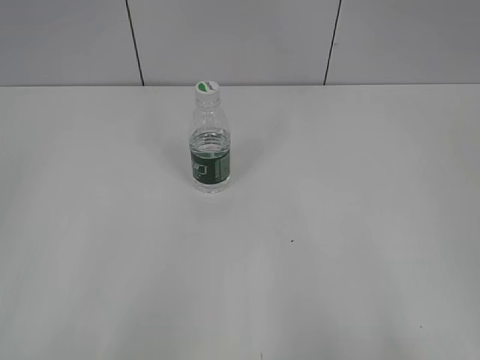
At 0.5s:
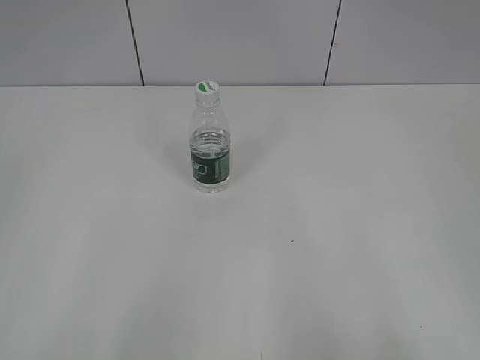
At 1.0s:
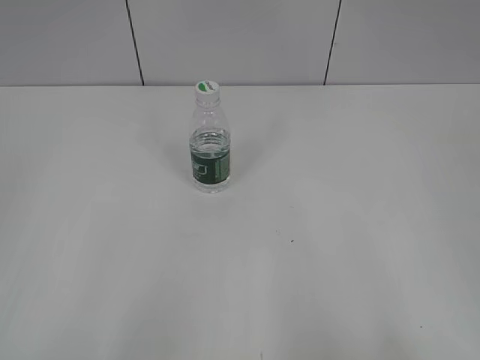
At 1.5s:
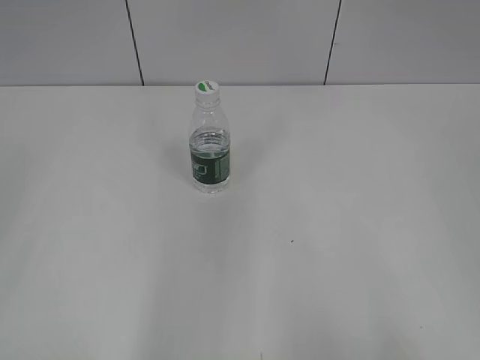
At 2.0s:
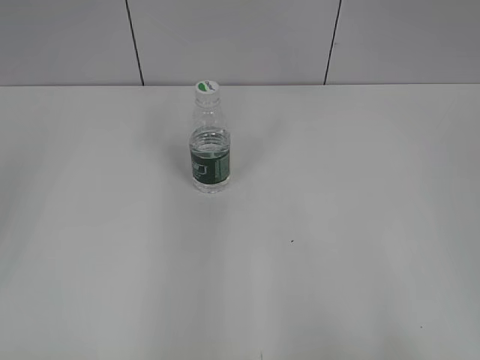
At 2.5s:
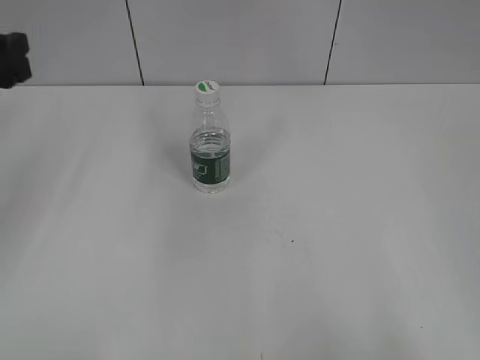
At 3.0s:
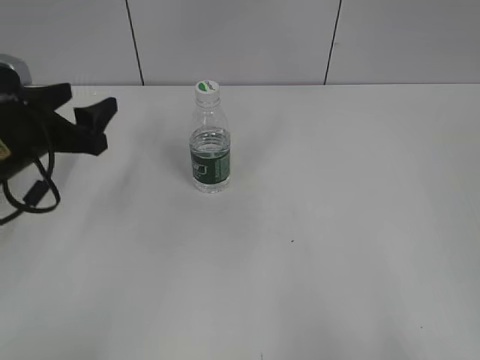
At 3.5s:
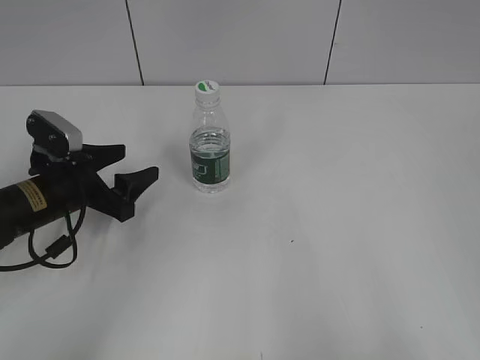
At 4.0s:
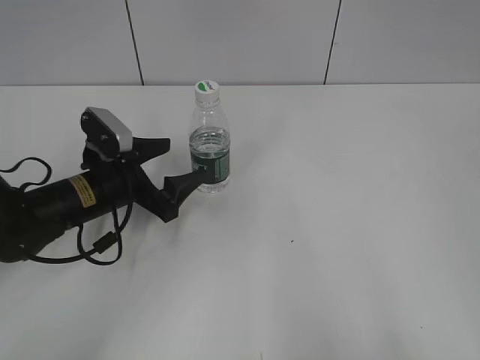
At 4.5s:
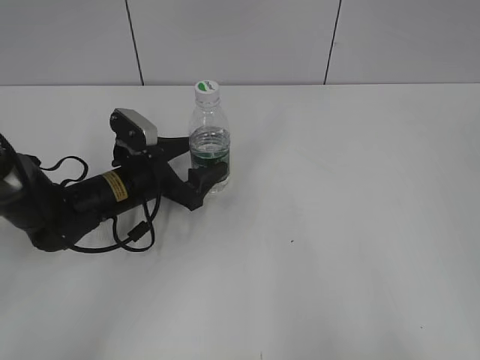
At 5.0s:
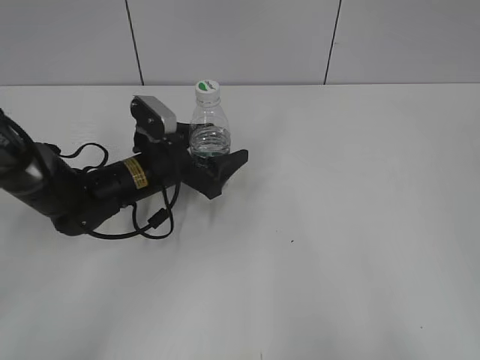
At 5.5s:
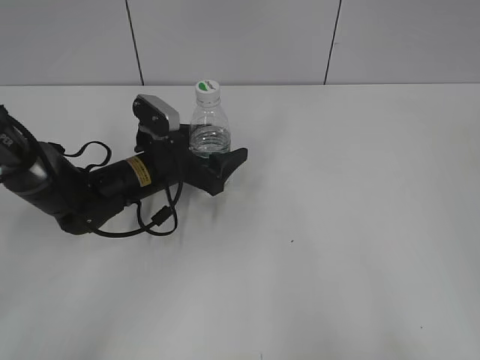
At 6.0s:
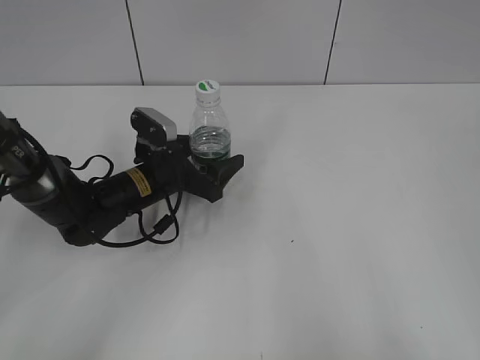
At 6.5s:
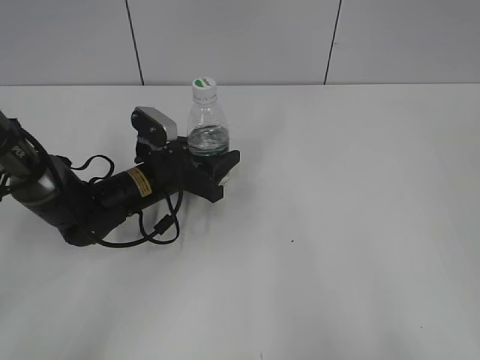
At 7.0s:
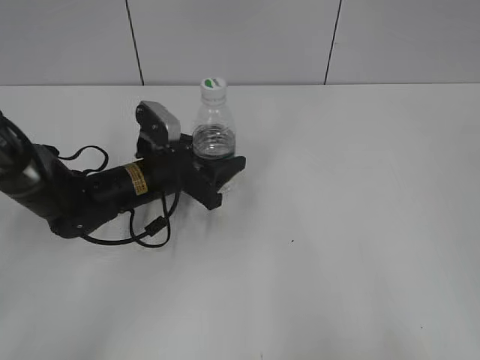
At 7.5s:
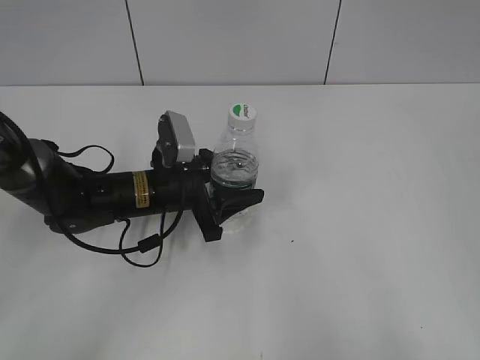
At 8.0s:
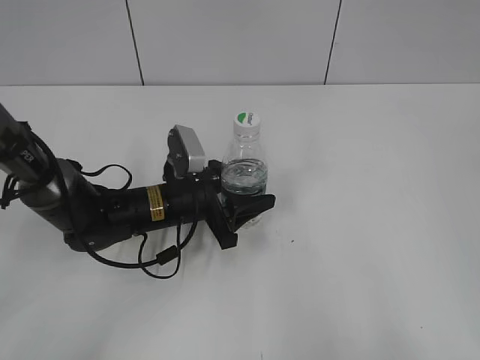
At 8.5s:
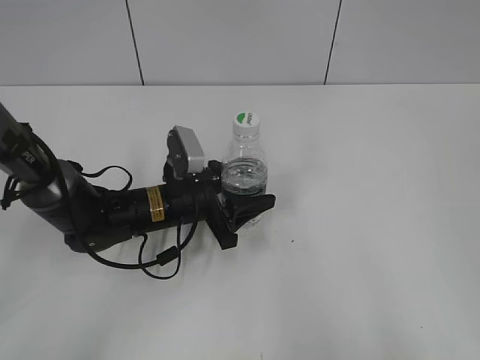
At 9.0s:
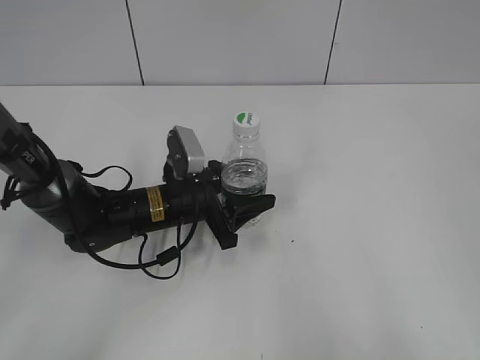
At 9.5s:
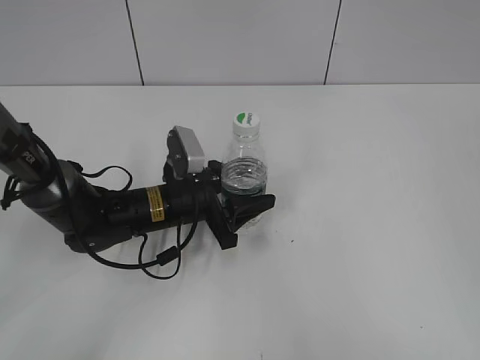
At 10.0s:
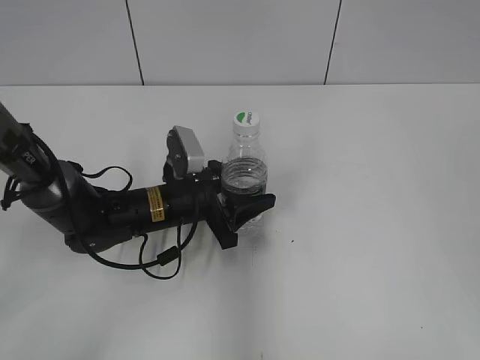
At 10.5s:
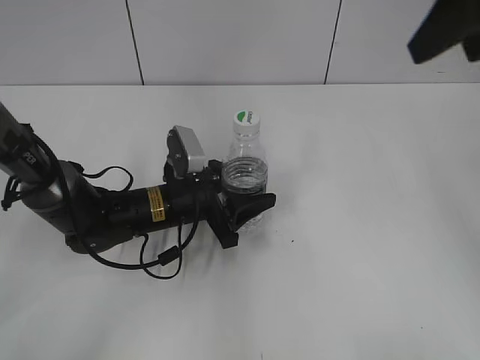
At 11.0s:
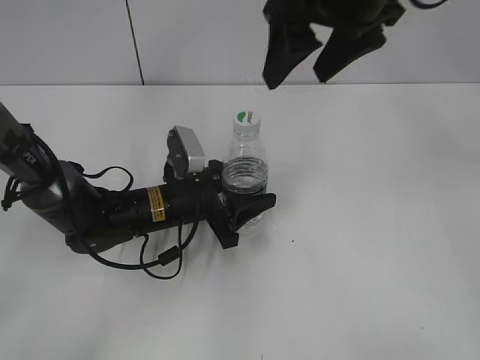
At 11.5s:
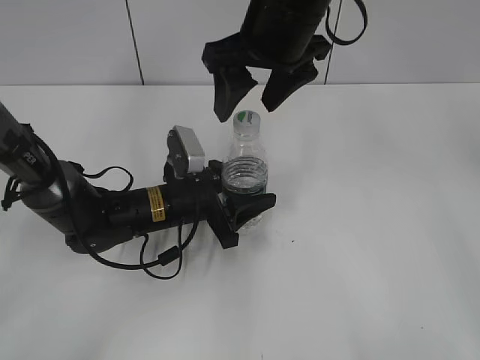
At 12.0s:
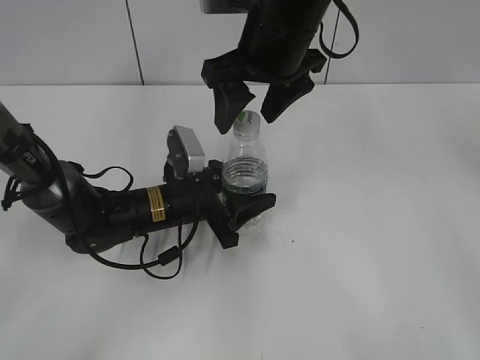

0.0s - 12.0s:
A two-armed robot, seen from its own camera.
Step, 0.0s - 6.0s: Grasp the bottle and move it to the center of the table with the left gripper.
Step, 6.5s - 7.5s: Lift the bottle and move it to the center of the table with the left gripper.
2.0s - 4.0s: The left gripper goes roughly 35 cm downward, forward and to the right, and opens.
4.0s - 6.0s: The left gripper heads to the right, covering about 5 cm.
6.0s - 8.0s: The left gripper shifts by approximately 5 cm, and closes its fingers.
8.0s - 10.0s: The right gripper goes roughly 15 cm forward and upward.
10.0s - 12.0s: The right gripper goes approximately 35 cm forward and to the left.

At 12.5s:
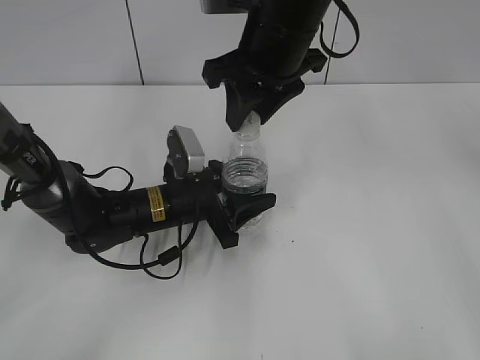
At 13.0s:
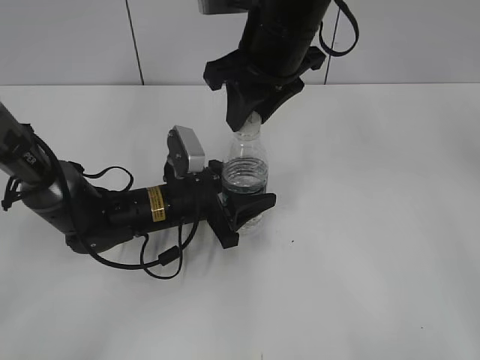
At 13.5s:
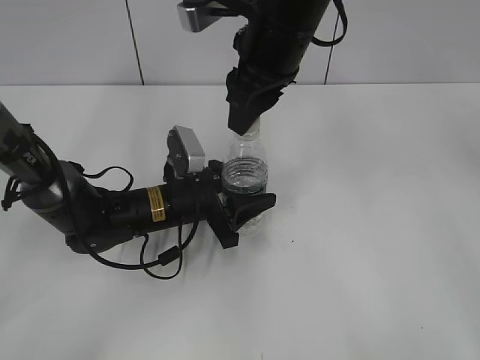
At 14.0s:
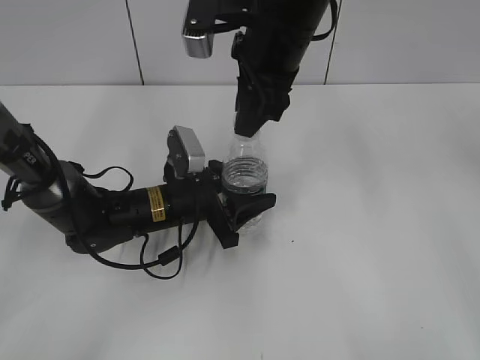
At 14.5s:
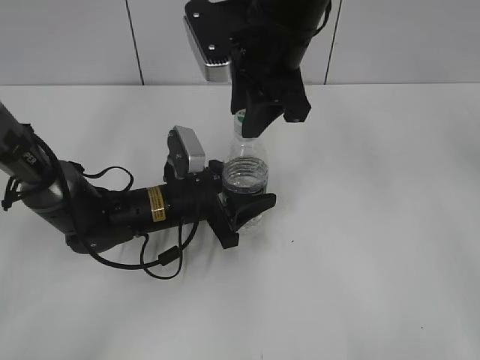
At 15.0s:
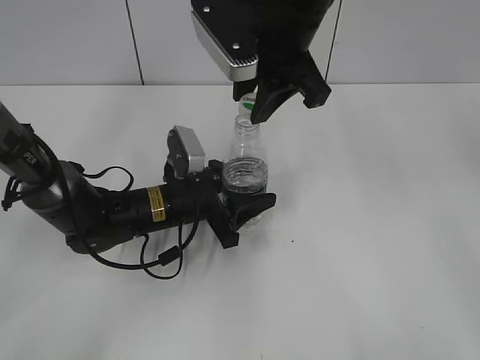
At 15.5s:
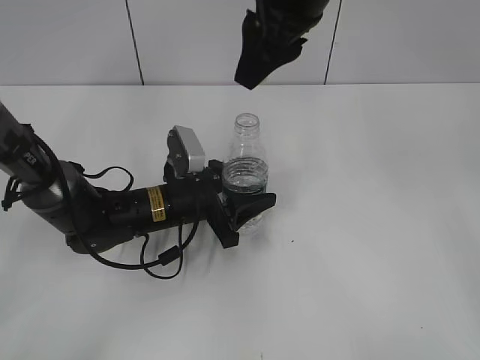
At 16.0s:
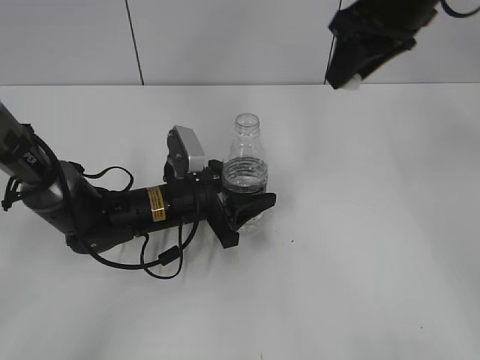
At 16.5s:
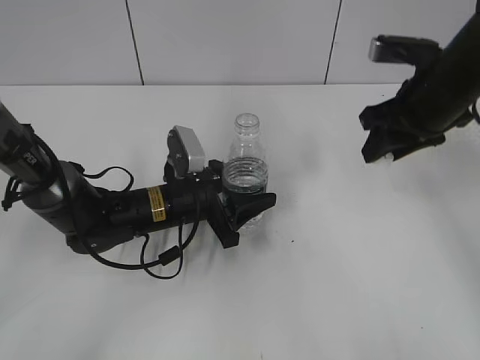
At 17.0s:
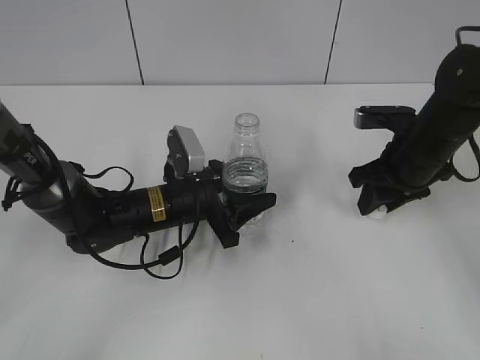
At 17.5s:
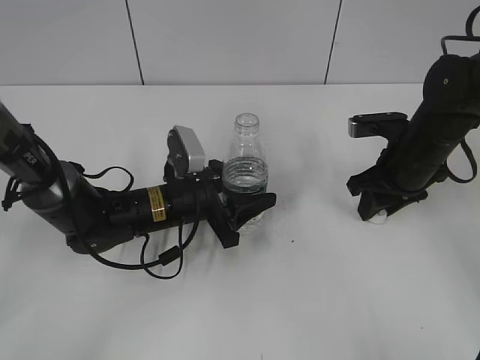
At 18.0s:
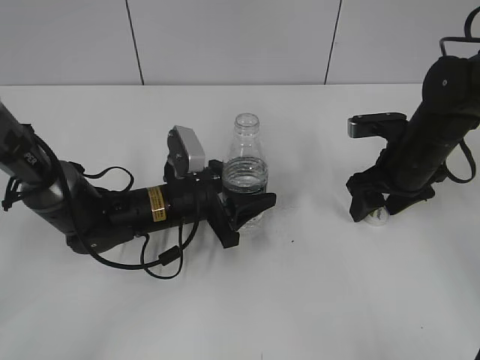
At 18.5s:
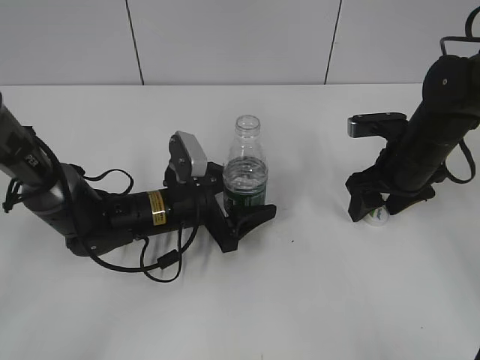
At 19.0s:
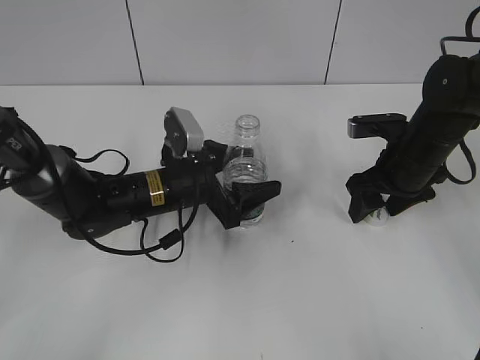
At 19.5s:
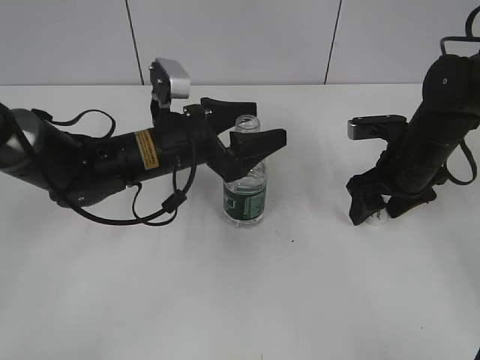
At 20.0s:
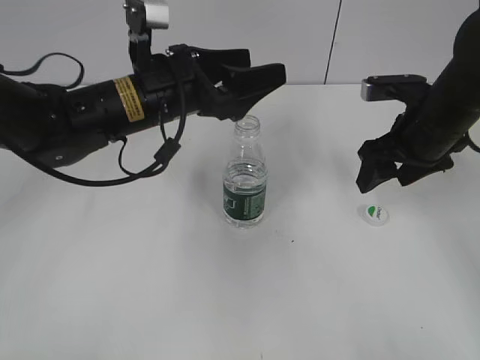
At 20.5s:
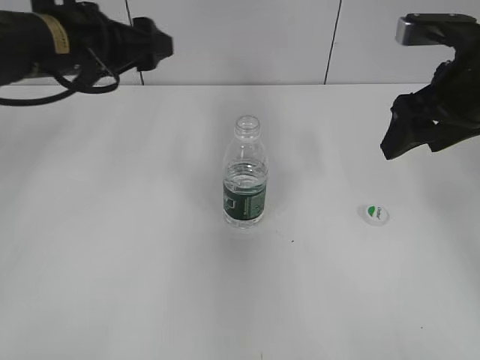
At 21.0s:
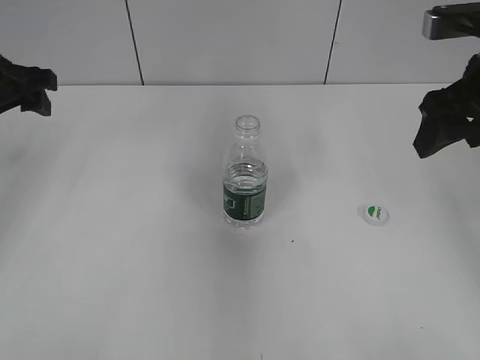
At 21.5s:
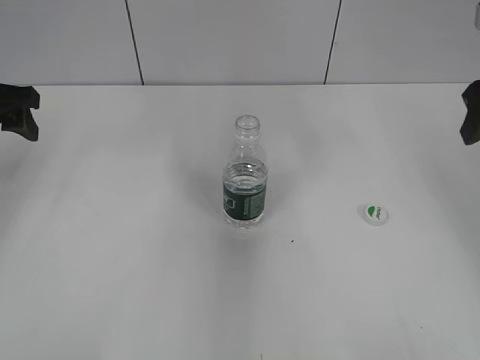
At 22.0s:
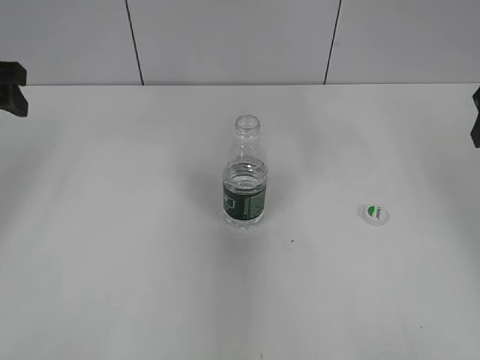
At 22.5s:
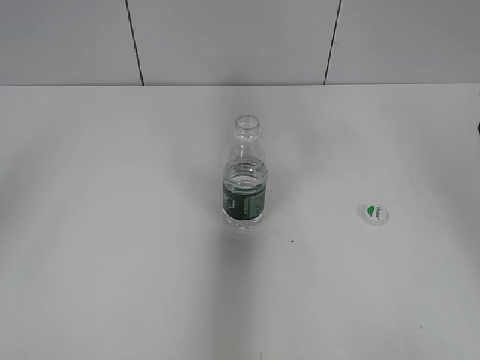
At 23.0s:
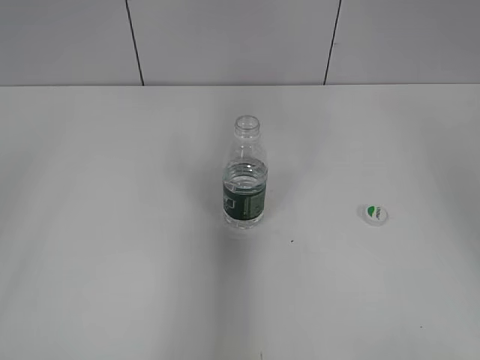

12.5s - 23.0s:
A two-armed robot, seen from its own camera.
Step, 12.5s - 15.0s: Unscrew the bottle cap with the right gripper while holding the bottle with the left gripper.
Step, 16.0s - 18.0s: Place the bottle cap on the table with the right gripper.
Step, 18.5s - 19.5s: Place the bottle on the table with the left gripper.
14.5s - 16.5s: The right gripper travels to the right by about 20 cm.
16.5s - 19.0s: The left gripper opens up. Meanwhile the right gripper is displaced downward by roughly 10 cm, and opens up.
19.0s - 21.0s: The right gripper is displaced upward by approximately 15 cm. The left gripper travels to the left and upward by roughly 25 cm.
21.0s - 23.0s: The left gripper heads backward and upward, covering some 30 cm. Meanwhile the right gripper moves upward and to the right, roughly 10 cm.

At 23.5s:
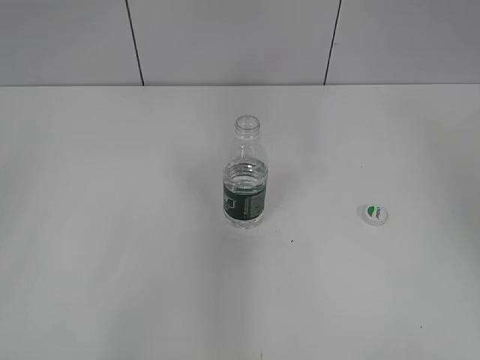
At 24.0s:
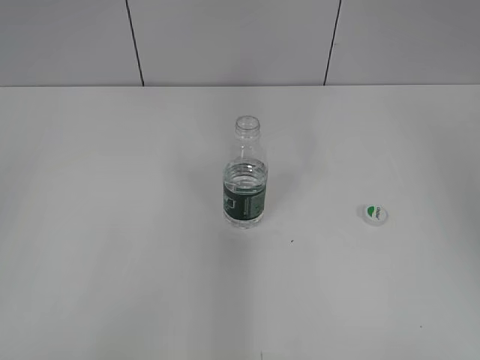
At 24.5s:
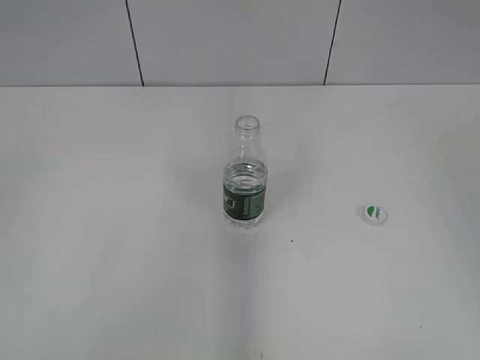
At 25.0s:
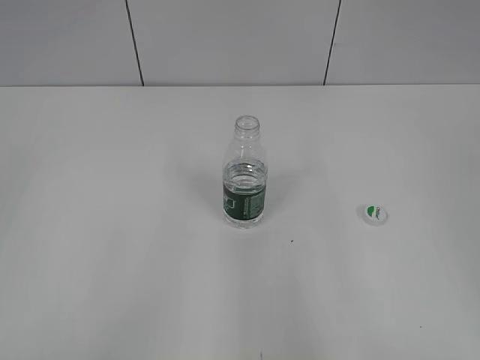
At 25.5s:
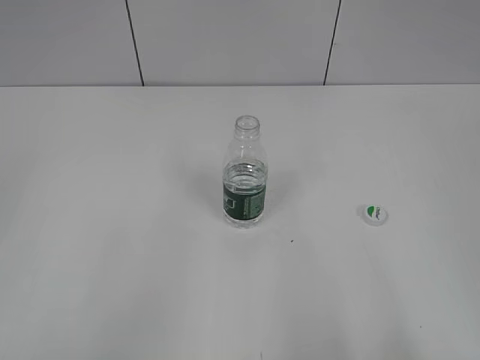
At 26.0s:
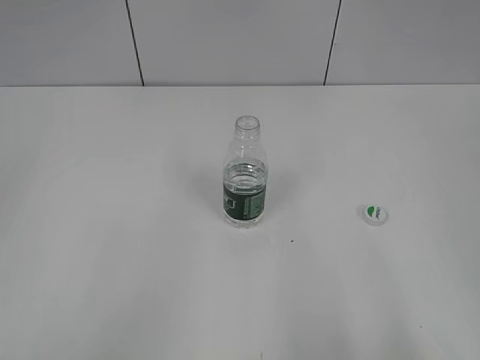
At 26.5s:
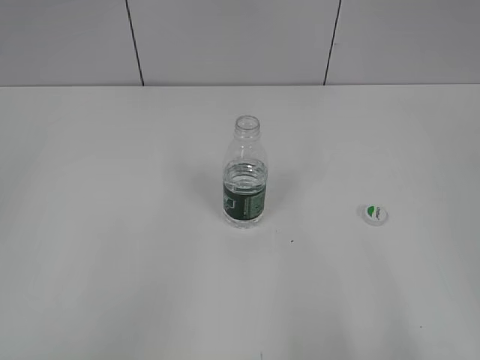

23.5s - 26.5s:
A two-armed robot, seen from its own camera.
23.5s - 25.0s: The right gripper moves backward, about 20 cm. The left gripper closes up.
